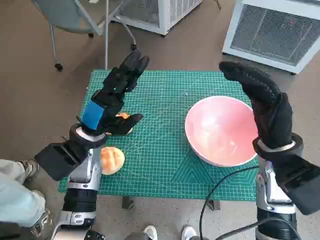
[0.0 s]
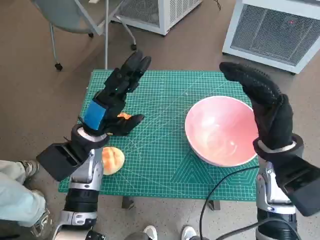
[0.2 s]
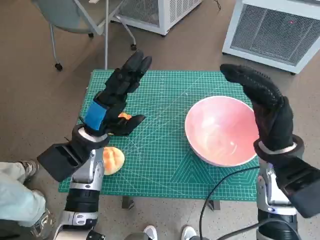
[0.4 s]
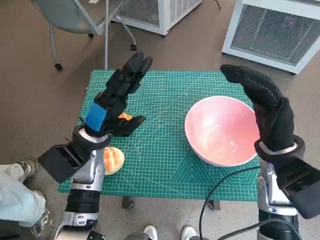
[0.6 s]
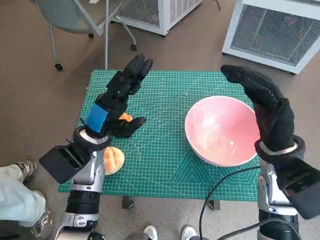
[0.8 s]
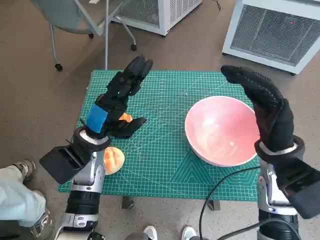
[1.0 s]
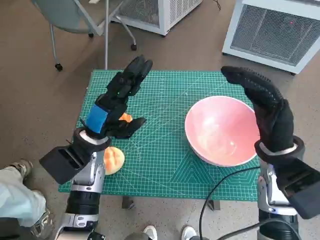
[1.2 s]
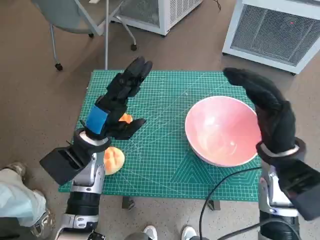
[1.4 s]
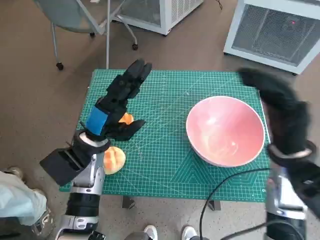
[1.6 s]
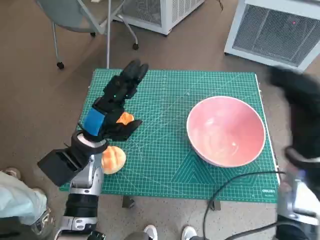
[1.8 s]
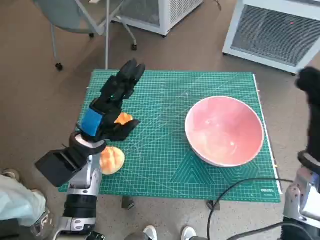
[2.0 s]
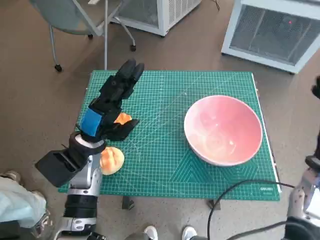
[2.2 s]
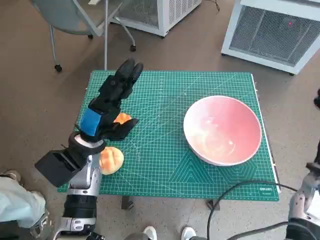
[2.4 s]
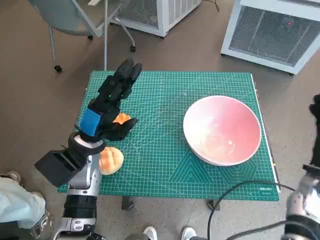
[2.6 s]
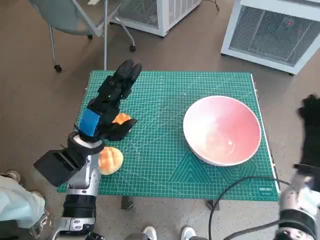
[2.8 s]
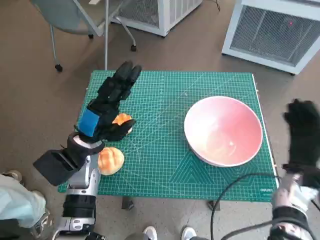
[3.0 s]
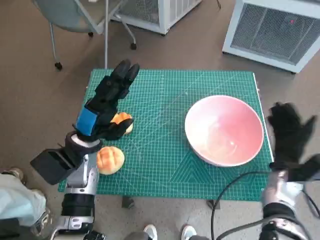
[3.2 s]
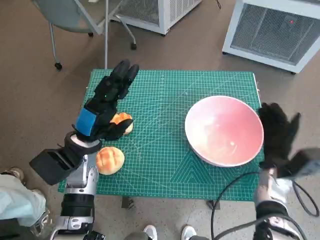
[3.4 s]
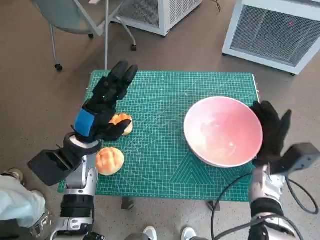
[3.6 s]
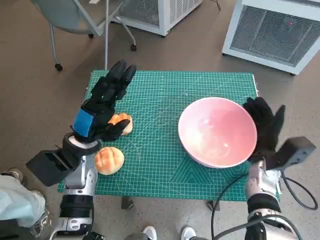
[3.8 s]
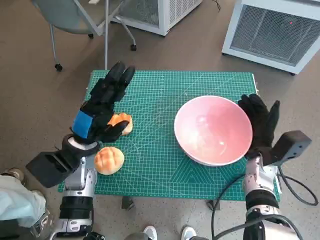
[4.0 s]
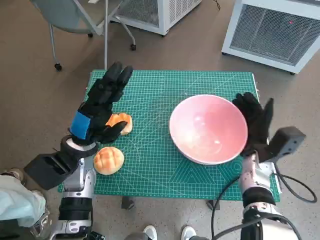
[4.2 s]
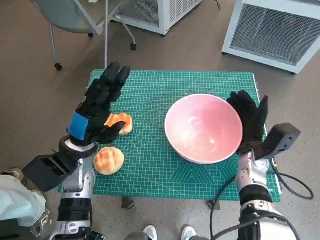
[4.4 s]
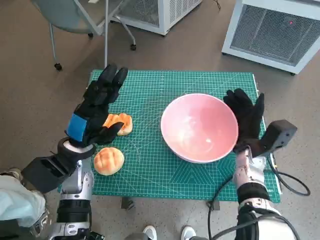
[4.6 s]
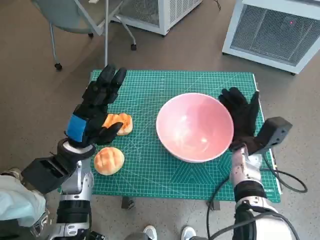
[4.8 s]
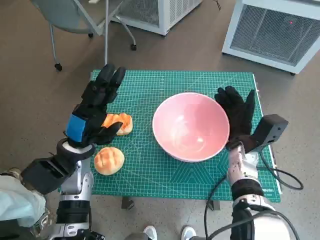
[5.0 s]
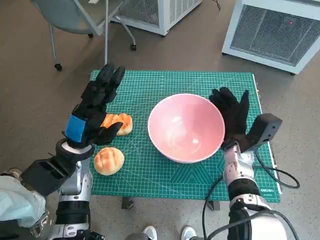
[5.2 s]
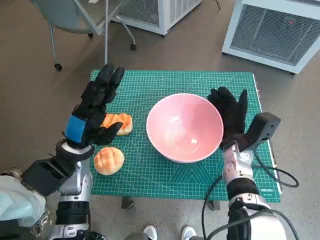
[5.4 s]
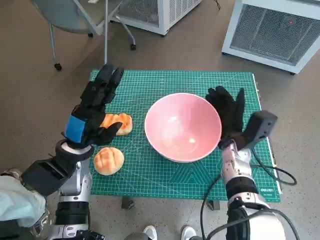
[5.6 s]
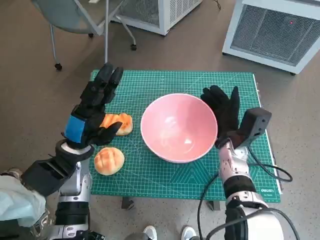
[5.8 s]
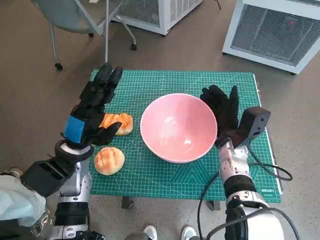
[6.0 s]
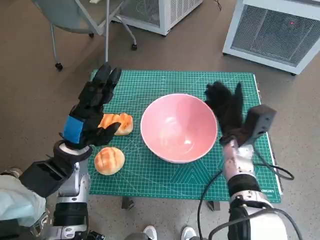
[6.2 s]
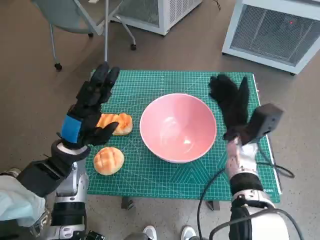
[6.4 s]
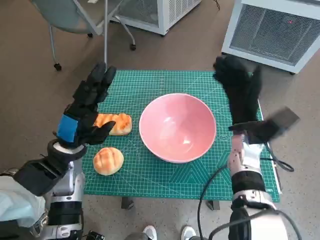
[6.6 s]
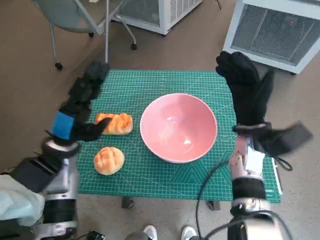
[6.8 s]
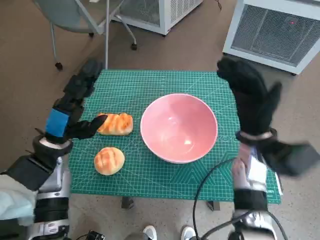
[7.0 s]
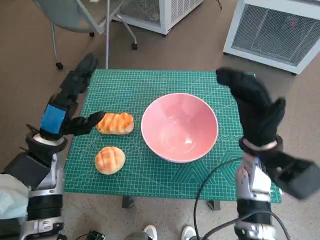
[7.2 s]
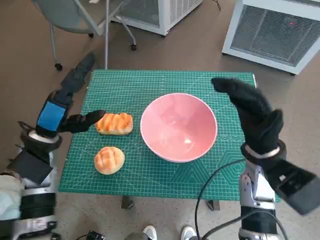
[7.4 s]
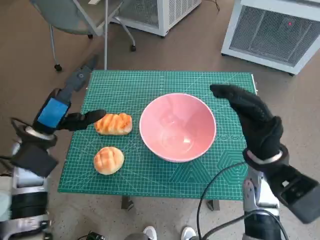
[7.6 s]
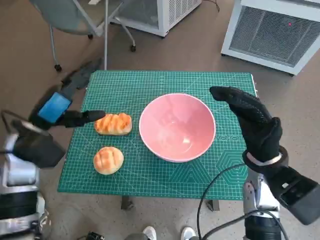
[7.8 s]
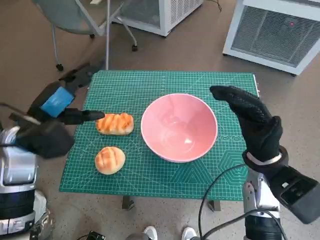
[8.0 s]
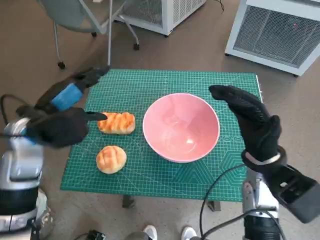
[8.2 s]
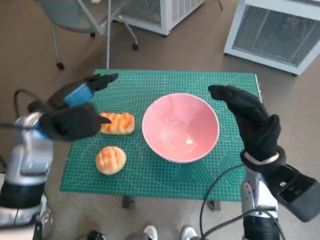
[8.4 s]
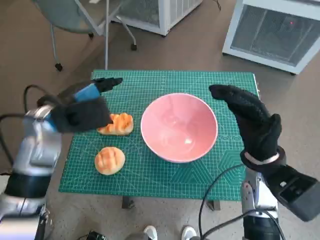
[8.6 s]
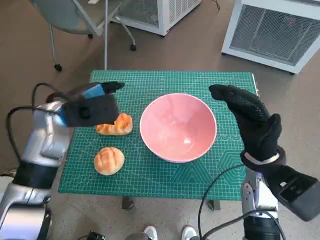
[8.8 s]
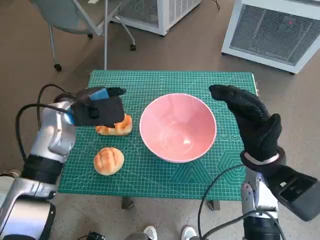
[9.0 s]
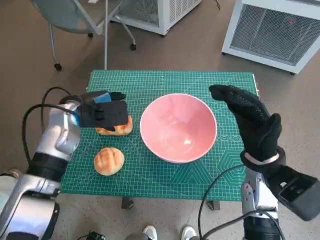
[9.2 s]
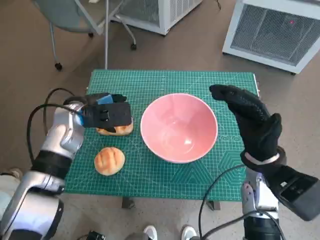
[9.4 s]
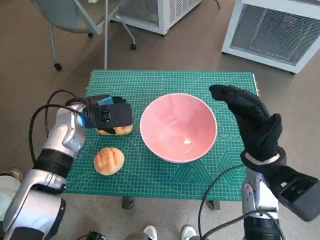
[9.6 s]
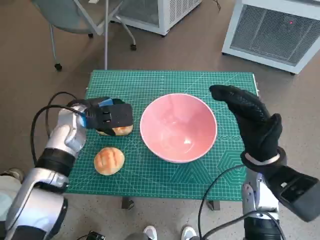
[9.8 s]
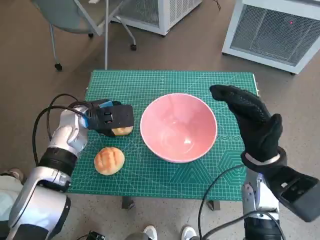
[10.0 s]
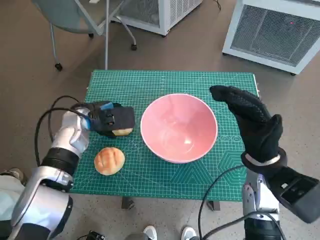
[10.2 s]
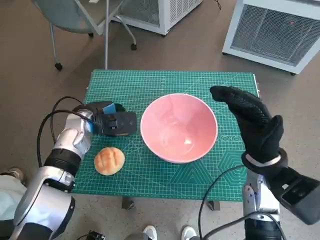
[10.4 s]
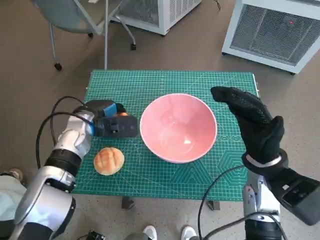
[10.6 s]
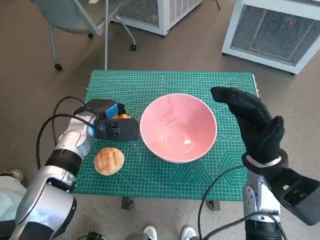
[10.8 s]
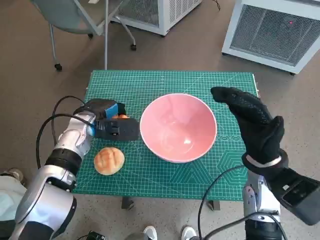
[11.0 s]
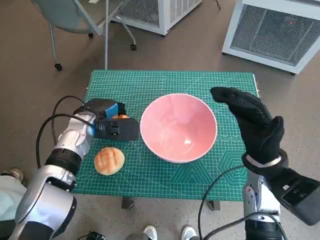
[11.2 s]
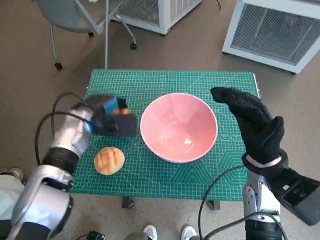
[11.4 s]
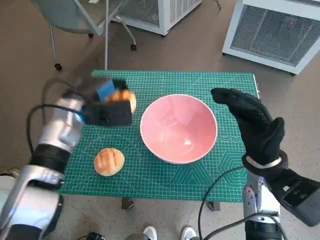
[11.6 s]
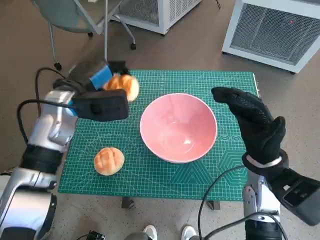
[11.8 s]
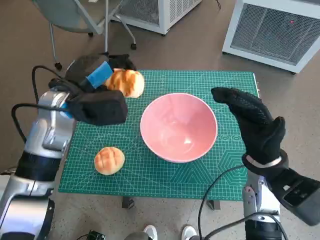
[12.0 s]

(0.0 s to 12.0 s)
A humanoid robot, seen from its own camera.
Task of the whole recording: Push the bowl into the center of the table and put the bread into the bowl.
Step, 0.0 s - 6.2 s: Move the pink bowl to the center of table with right hand.
Step, 6.4 s - 11.0 s: Grasp the long bread with left hand.
1.6 s - 3.0 s: The right hand shifts roughly 15 cm downward and to the right.
3.0 s - 4.4 s: The right hand goes approximately 10 cm to the left.
4.4 s - 6.0 s: The right hand moves some 5 cm.
6.0 s - 7.6 s: The right hand shifts roughly 10 cm upward and backward. Meanwhile the left hand heads to the left, covering about 5 cm.
7.6 s - 9.0 s: The left hand is displaced forward by about 5 cm.
9.0 s - 10.4 s: The left hand shifts roughly 5 cm downward.
10.4 s - 12.0 s: The left hand moves upward, approximately 10 cm.

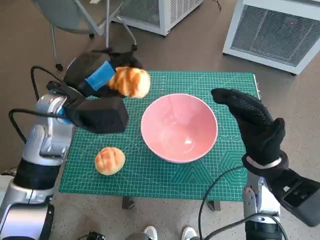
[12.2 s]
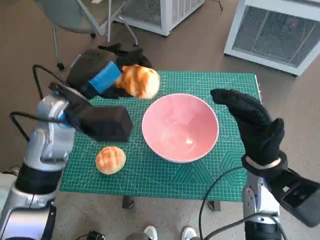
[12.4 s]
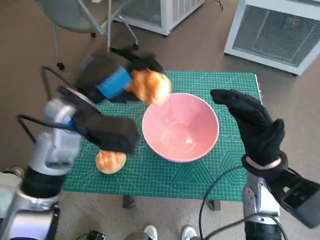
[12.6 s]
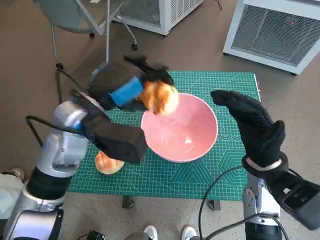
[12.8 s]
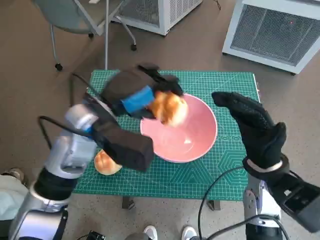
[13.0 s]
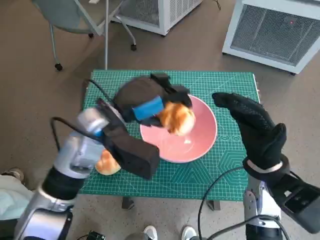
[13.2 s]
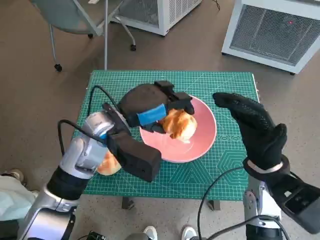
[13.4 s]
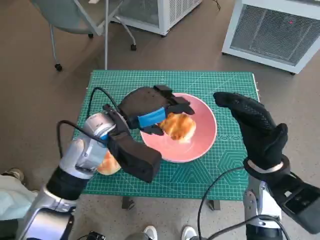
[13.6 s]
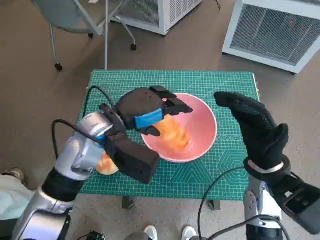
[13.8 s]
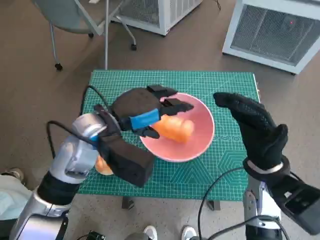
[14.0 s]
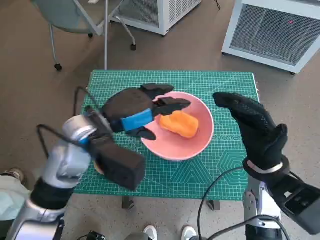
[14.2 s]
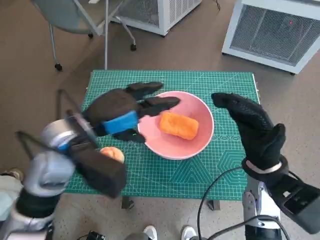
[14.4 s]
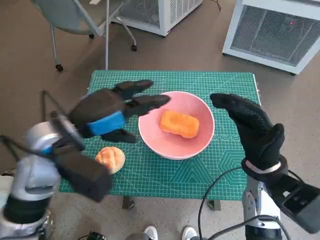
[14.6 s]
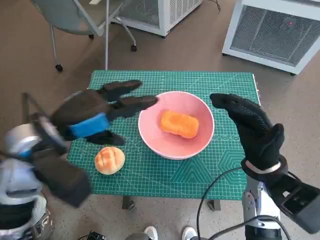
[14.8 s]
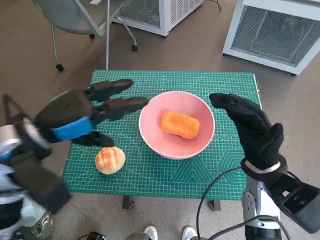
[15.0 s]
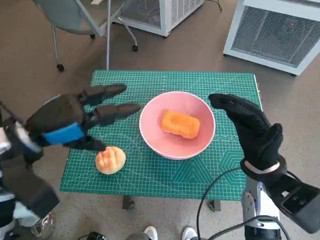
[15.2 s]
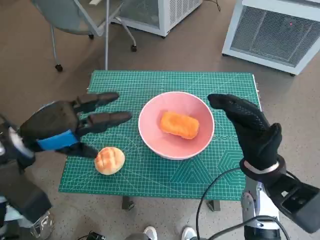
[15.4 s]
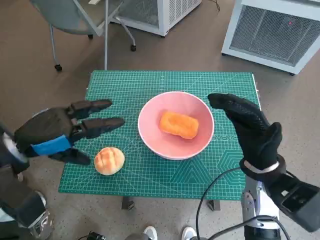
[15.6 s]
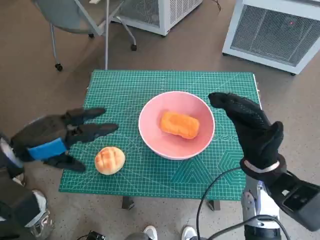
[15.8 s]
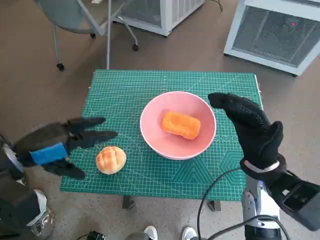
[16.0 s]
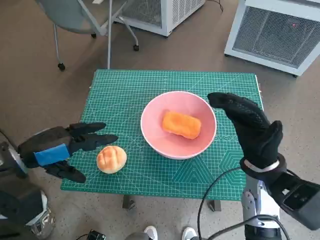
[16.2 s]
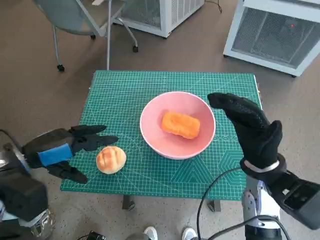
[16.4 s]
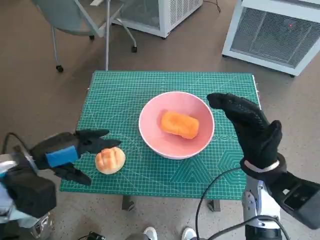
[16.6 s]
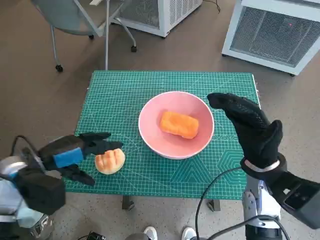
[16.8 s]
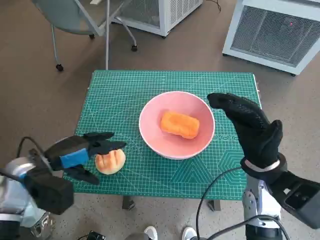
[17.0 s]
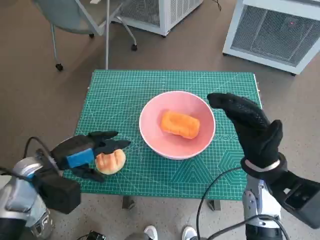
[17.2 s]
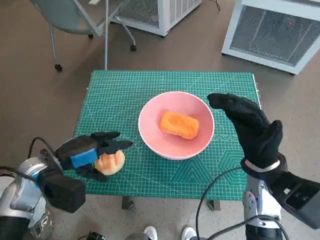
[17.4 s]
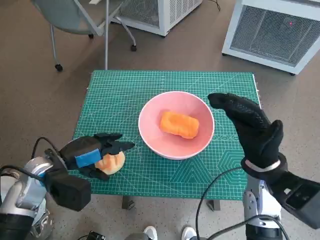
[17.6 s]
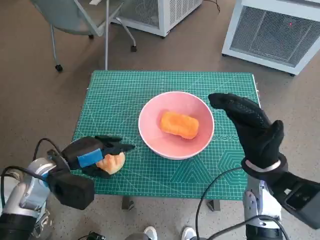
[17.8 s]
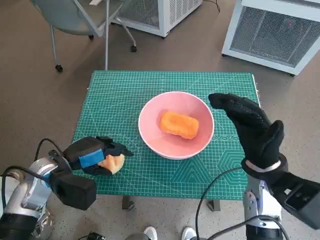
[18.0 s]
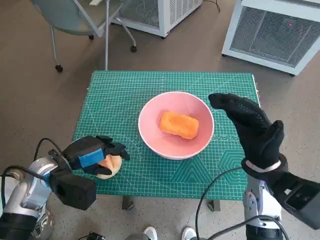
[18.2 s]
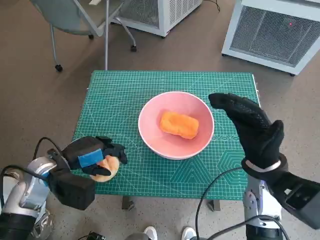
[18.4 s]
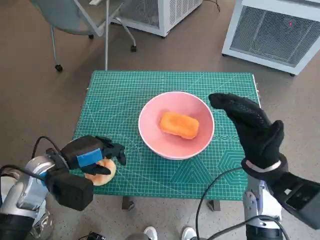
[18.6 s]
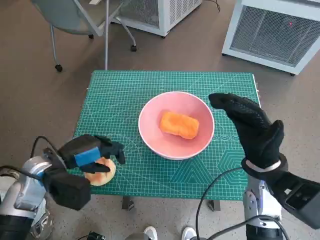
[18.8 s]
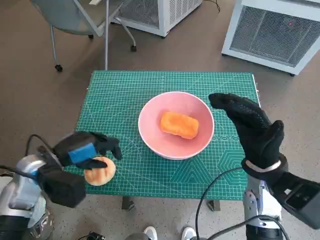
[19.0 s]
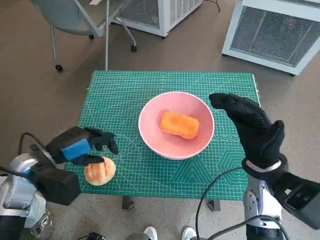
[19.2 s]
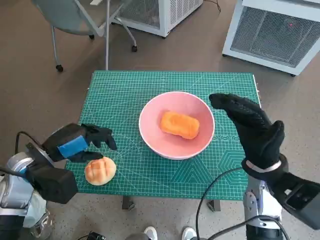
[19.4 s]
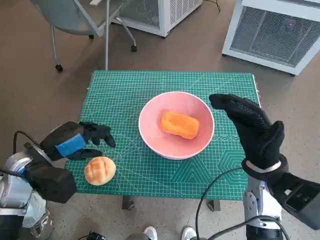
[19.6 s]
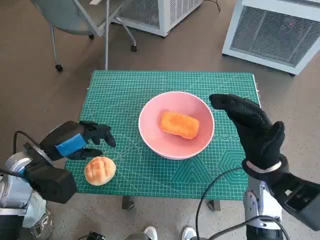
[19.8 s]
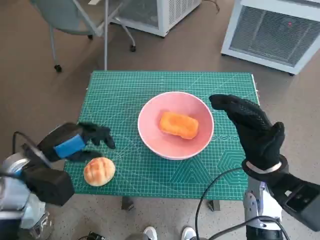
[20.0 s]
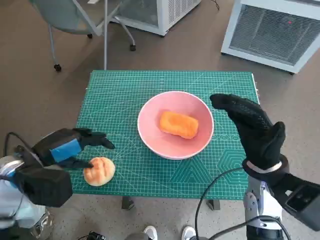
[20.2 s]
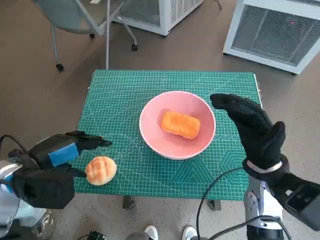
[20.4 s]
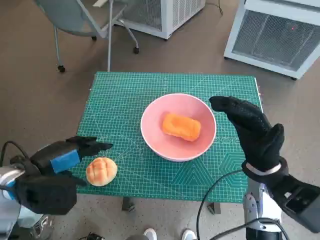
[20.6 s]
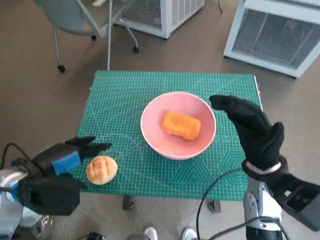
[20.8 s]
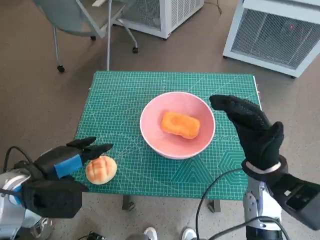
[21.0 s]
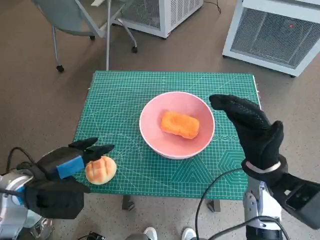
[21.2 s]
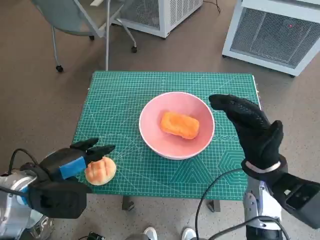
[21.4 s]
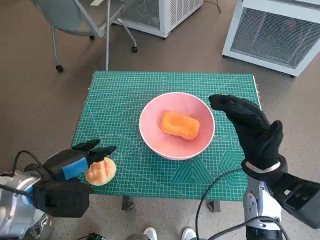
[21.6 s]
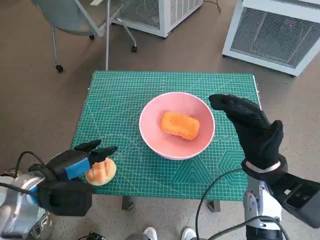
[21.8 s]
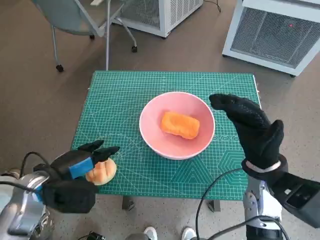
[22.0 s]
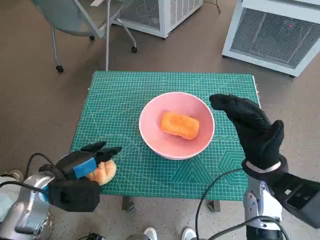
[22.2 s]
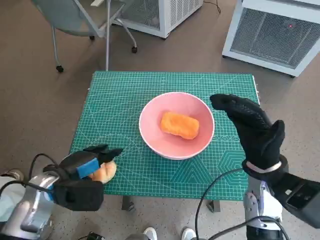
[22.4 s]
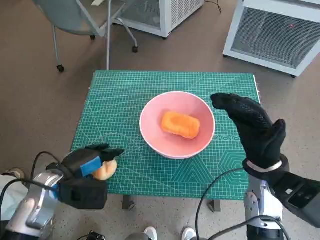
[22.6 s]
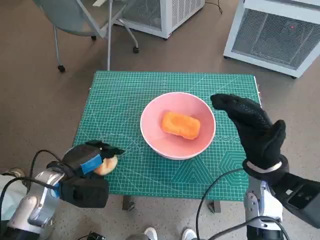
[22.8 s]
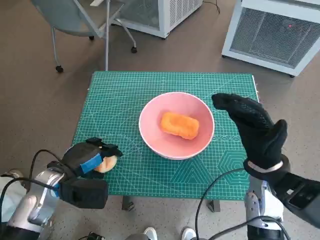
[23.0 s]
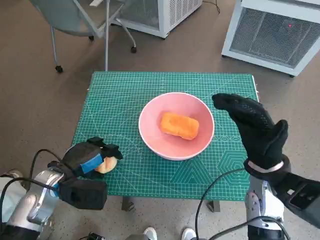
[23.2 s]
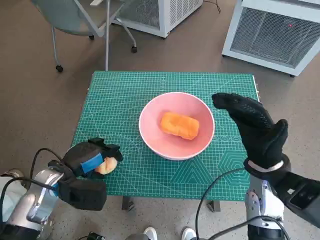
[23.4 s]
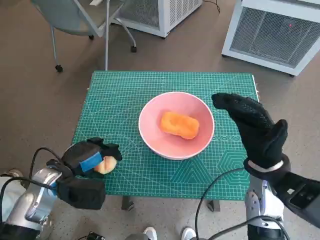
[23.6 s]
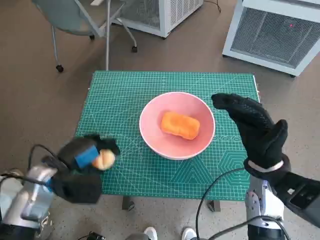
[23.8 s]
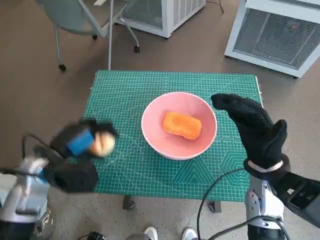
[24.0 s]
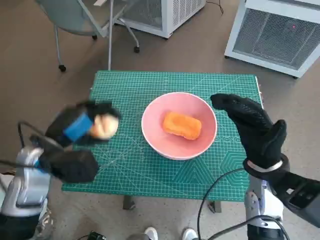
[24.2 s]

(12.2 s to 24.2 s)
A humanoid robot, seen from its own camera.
Task of the whole recording: Push the bowl into the center of the table and put the bread into the bowl.
Step, 12.2 s - 13.8 s: Place the long bread in pink bowl with left hand.
Step, 14.0 s - 23.0 s: Grasp the round bread with left hand.
12.2 s - 13.8 s: The left hand shifts about 5 cm to the right.
13.8 s - 15.2 s: The left hand travels to the left and backward by roughly 15 cm.
15.2 s - 16.6 s: The left hand is displaced downward by about 5 cm.
16.6 s - 18.2 s: The left hand travels downward by roughly 5 cm.
18.2 s - 19.8 s: The hands move only a little.
21.2 s - 22.6 s: The left hand shifts about 5 cm downward.
22.6 s - 24.2 s: The left hand travels upward by about 5 cm.
